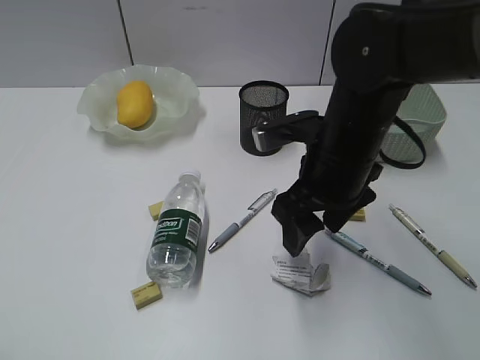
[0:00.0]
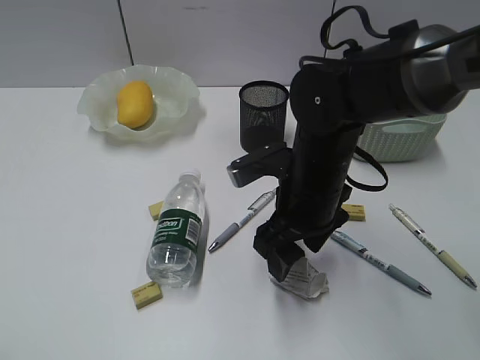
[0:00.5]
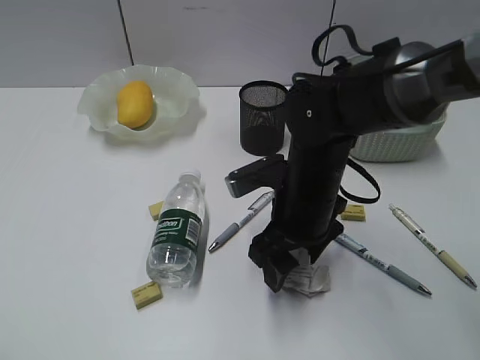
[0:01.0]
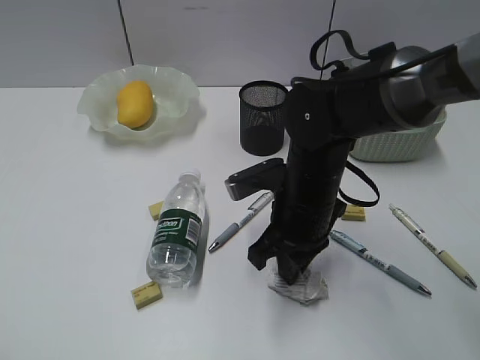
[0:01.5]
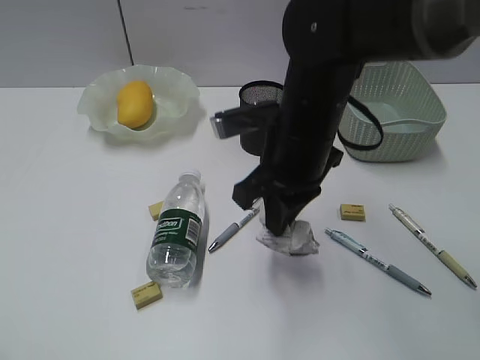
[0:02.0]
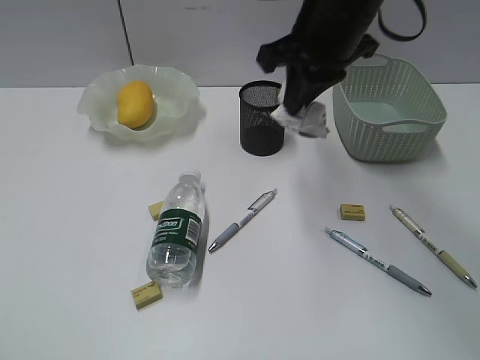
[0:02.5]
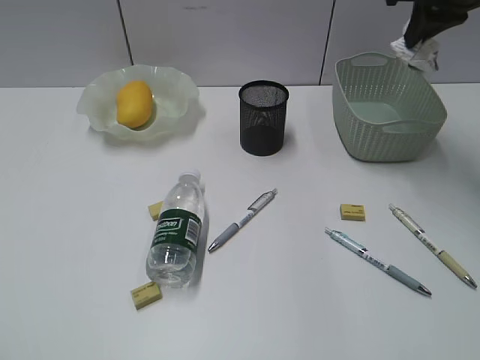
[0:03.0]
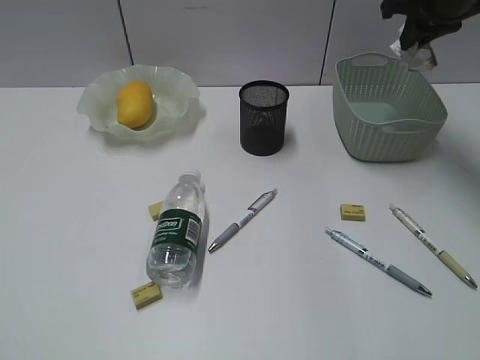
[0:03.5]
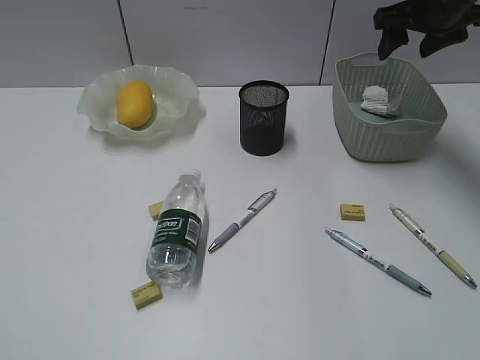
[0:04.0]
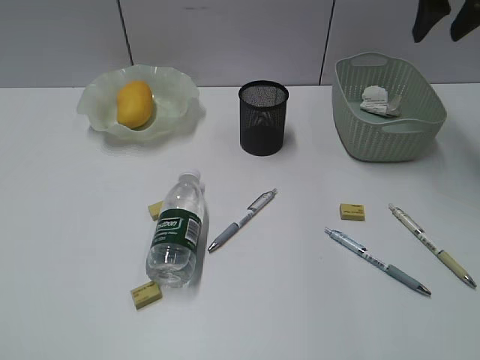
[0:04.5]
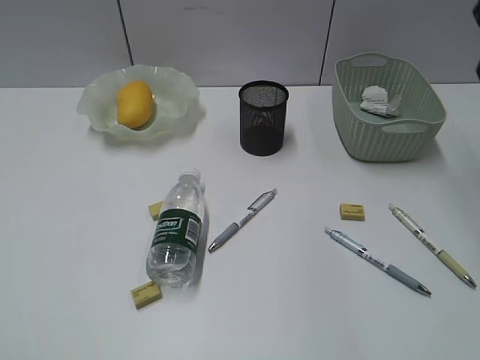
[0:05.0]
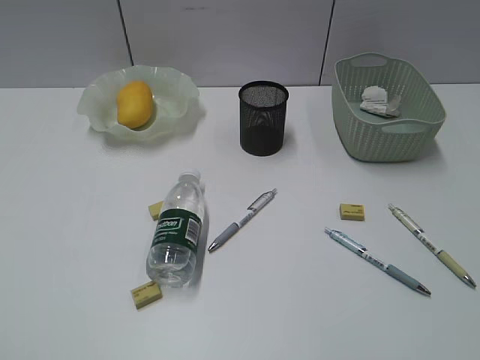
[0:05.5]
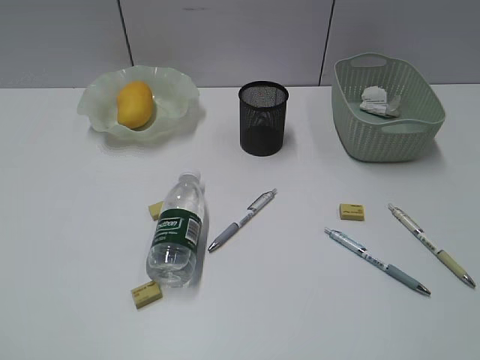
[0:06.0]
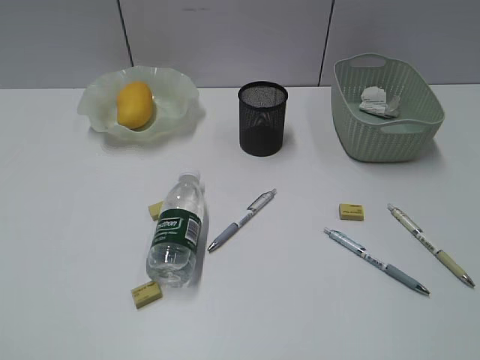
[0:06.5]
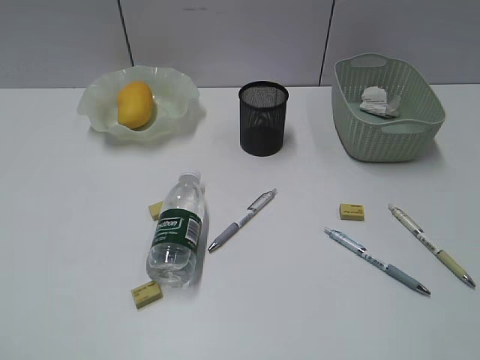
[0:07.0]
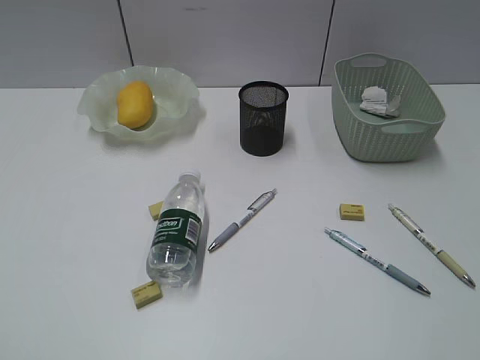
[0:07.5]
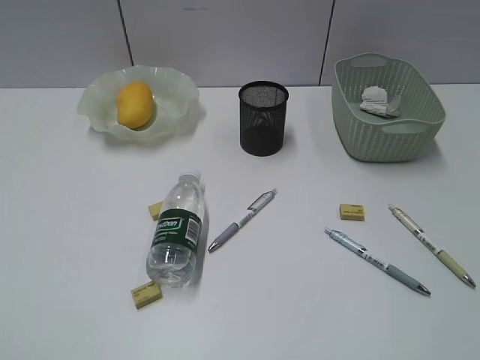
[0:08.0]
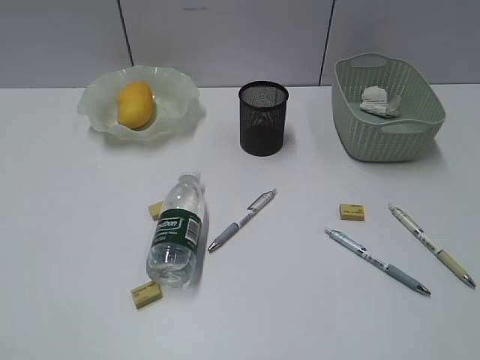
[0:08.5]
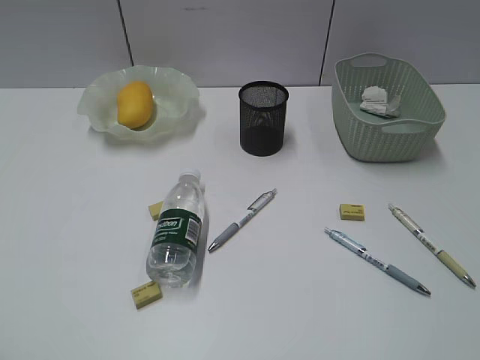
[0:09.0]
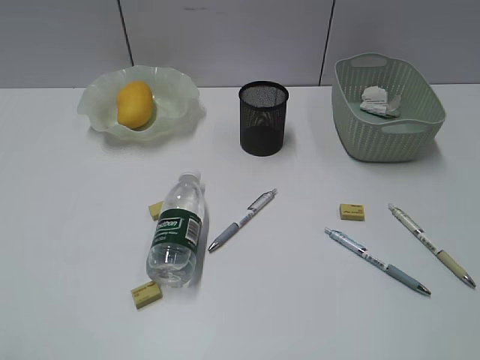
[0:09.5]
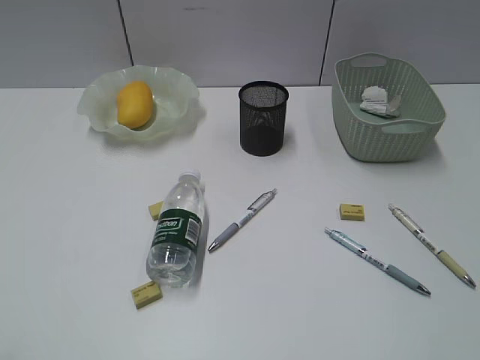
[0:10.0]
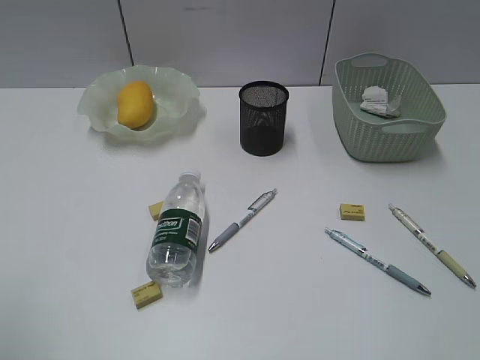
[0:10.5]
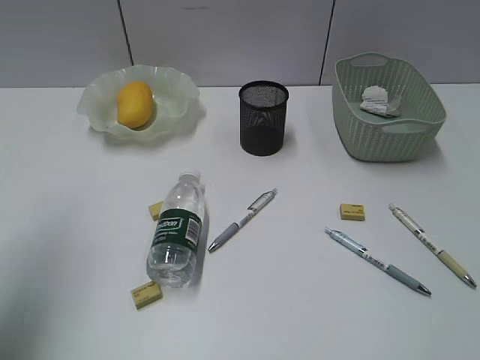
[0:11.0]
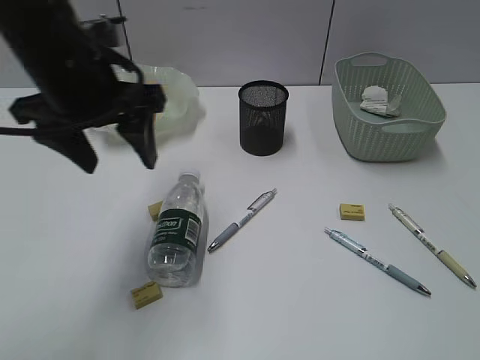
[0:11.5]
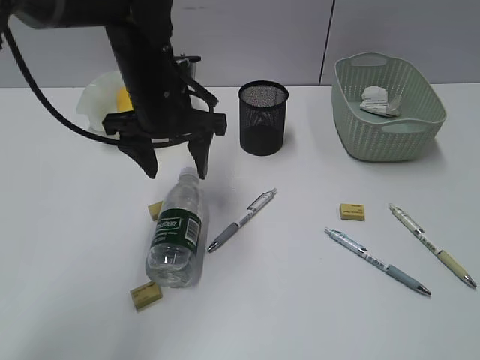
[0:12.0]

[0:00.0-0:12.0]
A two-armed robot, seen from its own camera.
Step, 0:02.0 to 0:04.0: Place the waste paper in the basket with right gripper.
0:00.0 to 0:02.0: The right gripper closes.
0:02.0 to 0:04.0: The right gripper travels to the right, forward and upward by some 30 cm, and opens.
0:04.0 to 0:06.0: The right gripper moves backward, some 40 cm.
0:10.0 to 0:12.0: The left gripper moves forward and to the right, about 40 cm.

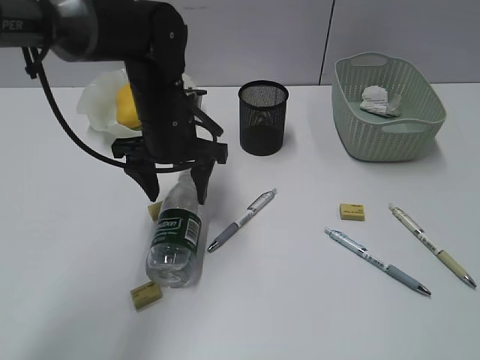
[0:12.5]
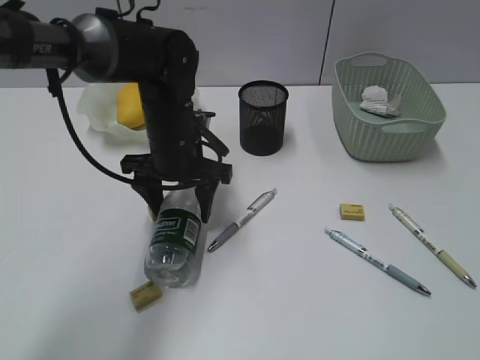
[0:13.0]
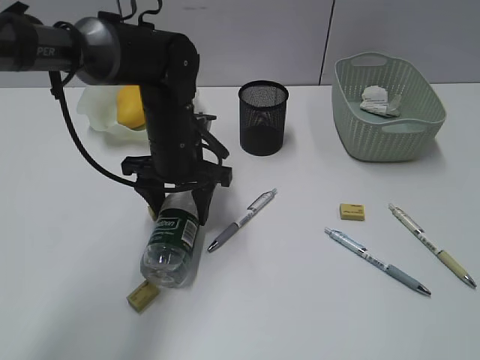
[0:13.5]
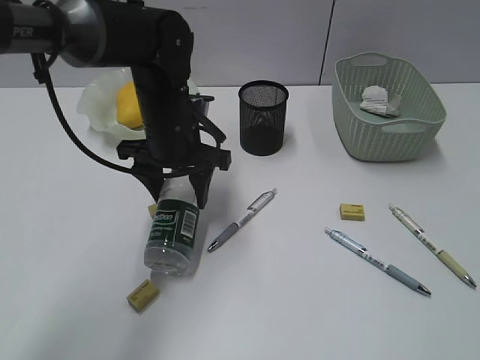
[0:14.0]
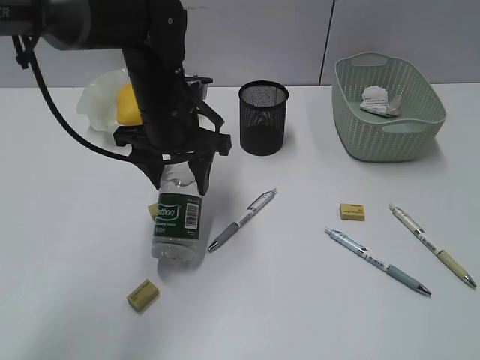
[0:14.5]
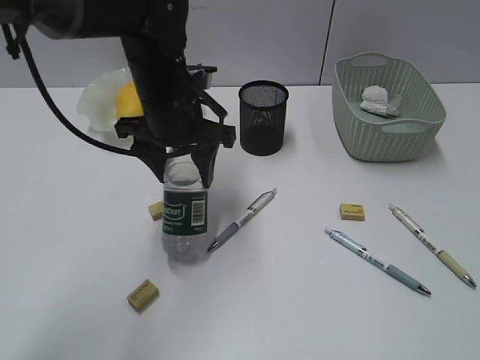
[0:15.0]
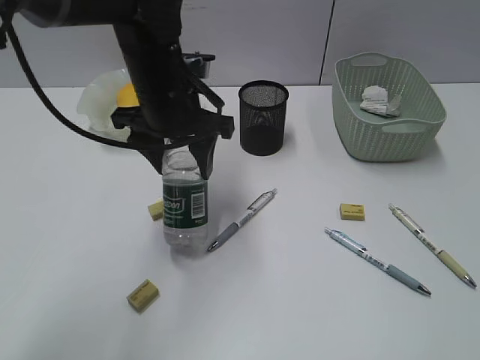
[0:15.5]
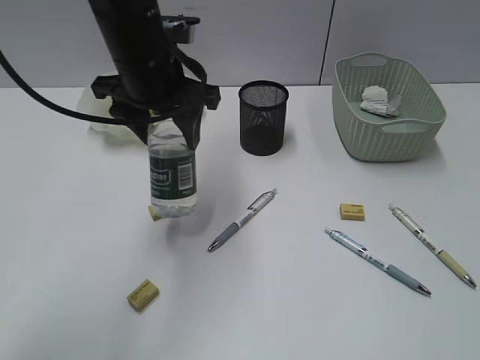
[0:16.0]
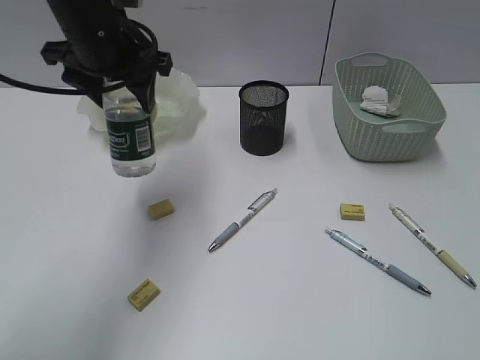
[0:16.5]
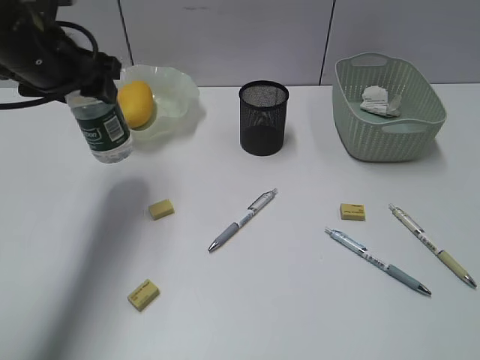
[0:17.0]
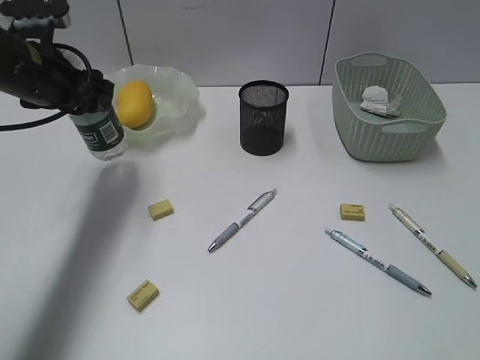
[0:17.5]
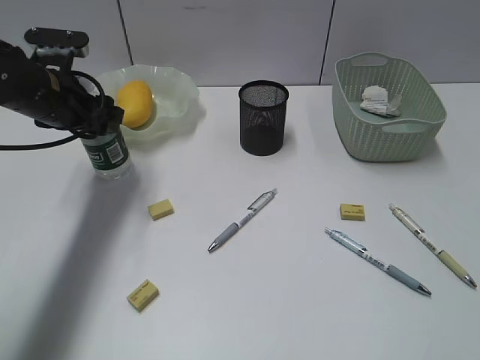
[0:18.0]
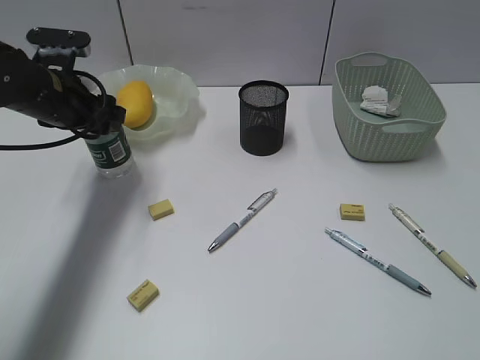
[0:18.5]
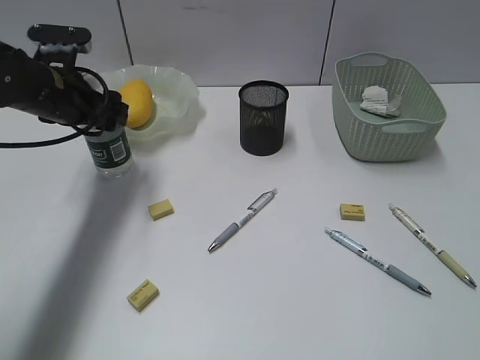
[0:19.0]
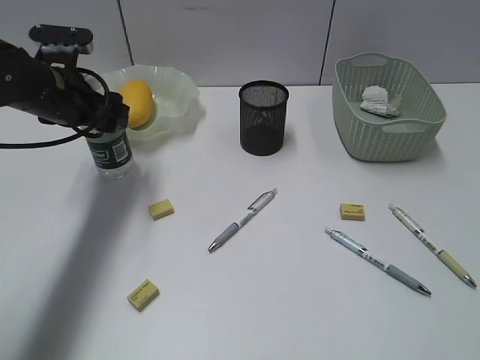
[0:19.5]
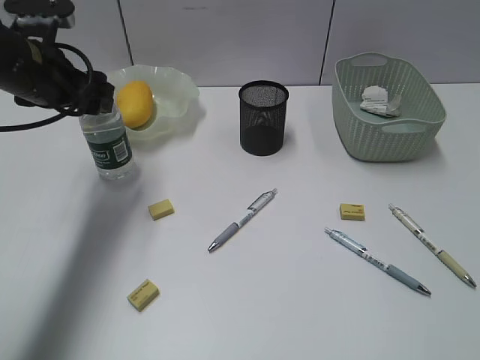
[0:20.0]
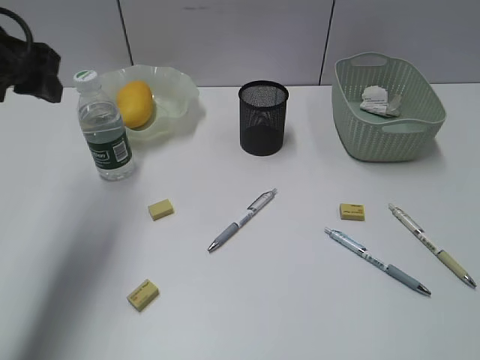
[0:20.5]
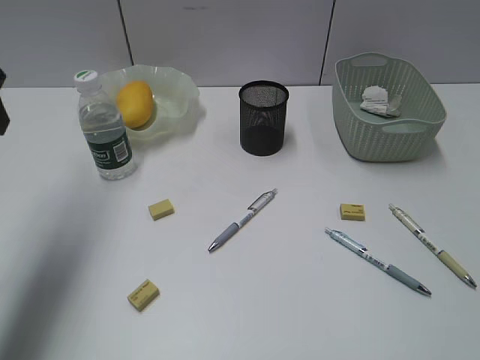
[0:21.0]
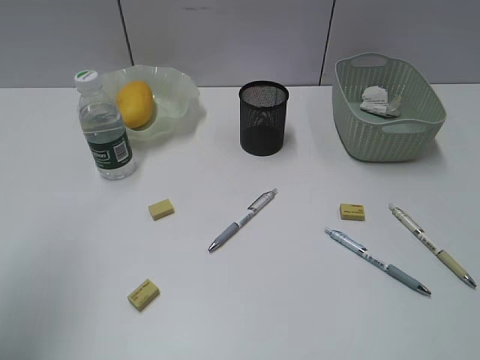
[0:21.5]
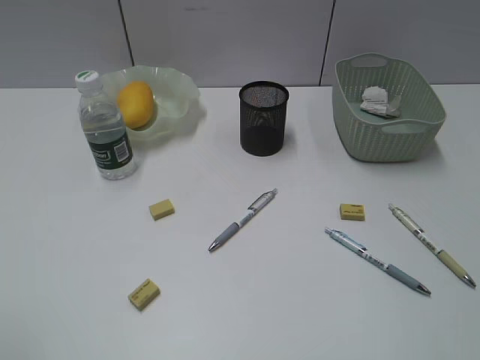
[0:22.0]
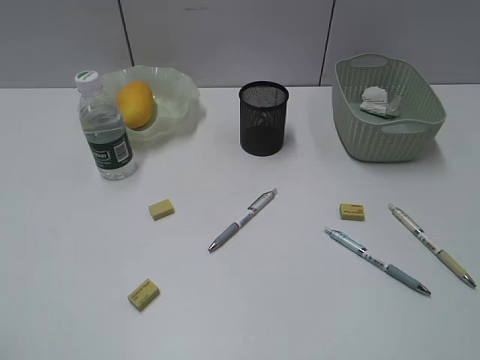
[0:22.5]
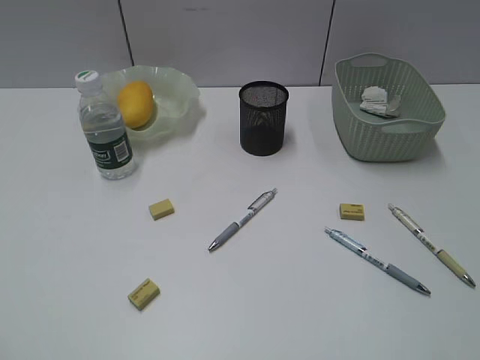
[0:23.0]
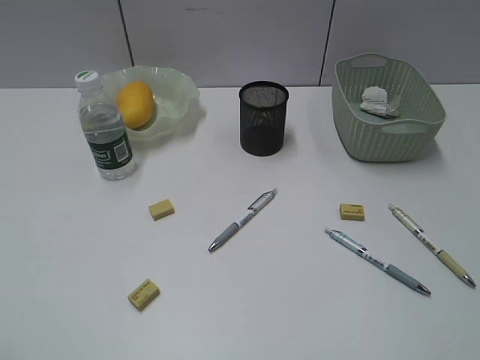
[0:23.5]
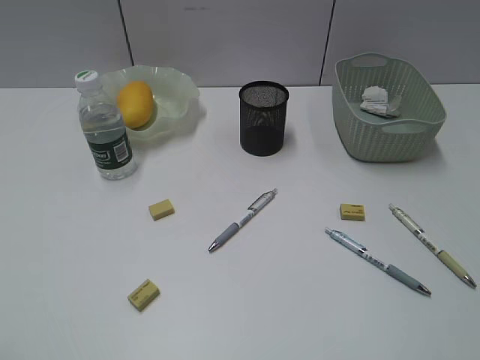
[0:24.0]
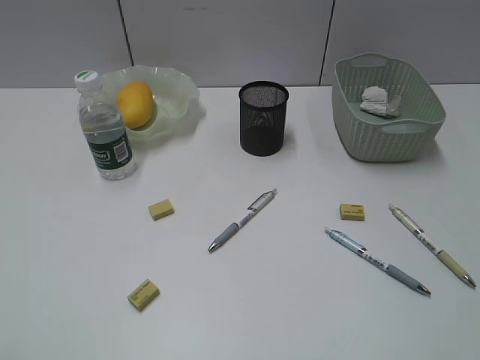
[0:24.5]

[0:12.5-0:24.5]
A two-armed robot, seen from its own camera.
Step, 0:13.5 to 0:20.0: Stand the bottle with left gripper.
0:12.5 to 0:14.5: The grippers make only small movements.
0:14.5 to 0:16.5: The left gripper moves upward and to the left, approximately 10 cm.
0:16.5 to 0:18.5: The left gripper goes some 10 cm downward and to the left.
0:18.5 to 0:20.5: The left gripper travels upward and backward by approximately 15 cm.
0:20.5 to 0:22.5: The left gripper moves backward, about 30 cm.

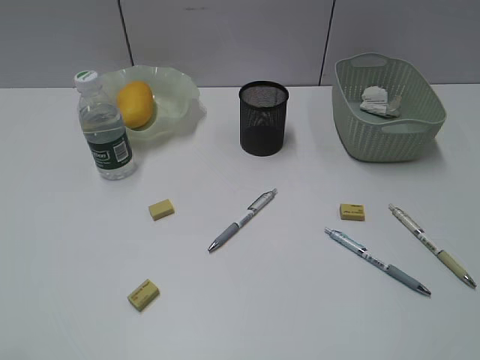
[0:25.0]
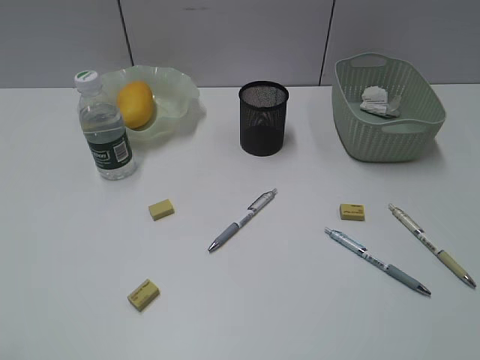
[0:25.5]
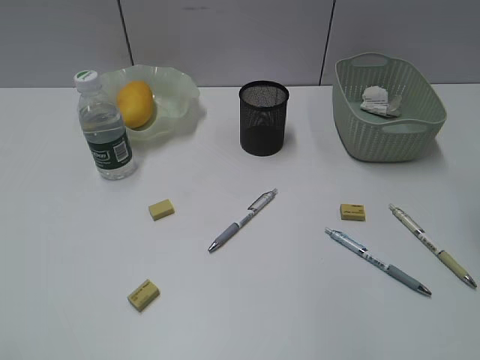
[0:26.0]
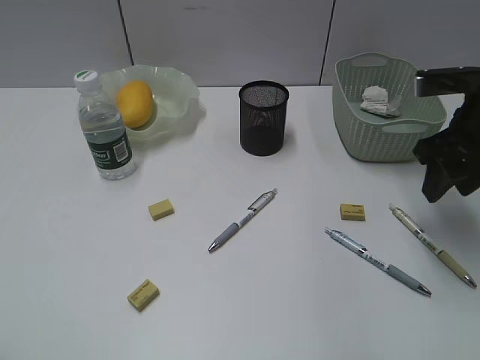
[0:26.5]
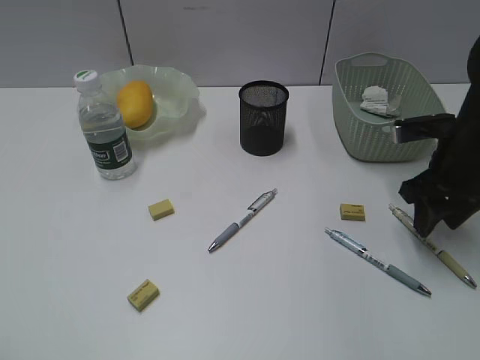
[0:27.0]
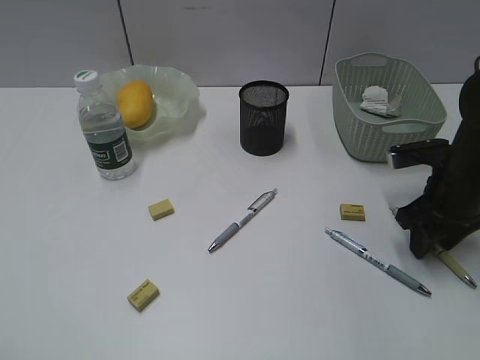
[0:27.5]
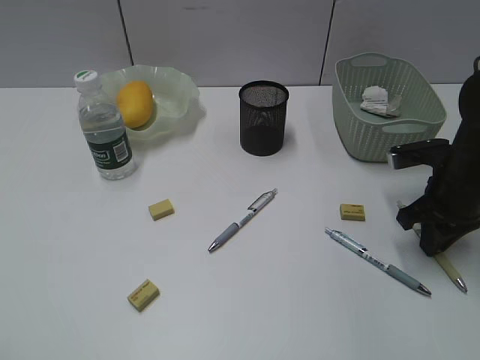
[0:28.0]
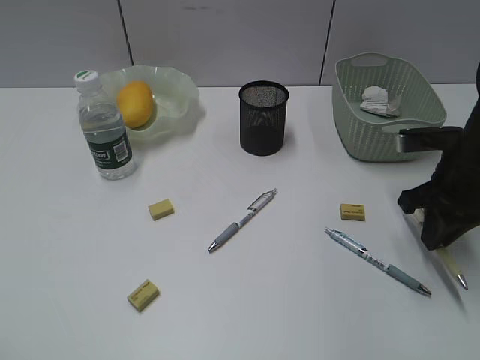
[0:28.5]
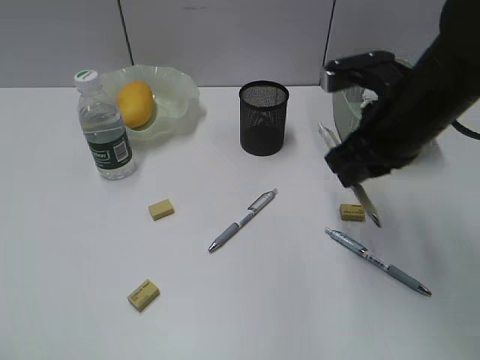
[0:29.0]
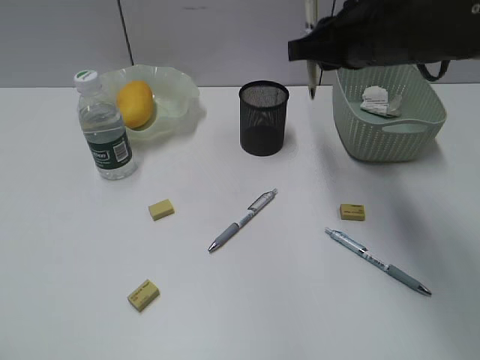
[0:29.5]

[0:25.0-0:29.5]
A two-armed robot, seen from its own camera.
Step, 0:25.0 to 0:28.0: Grasp the yellow pen with right gripper.
0:25.0 to 0:27.0: The right gripper heads forward and downward, covering some 35 cm.
0:27.0 to 0:29.5: The right gripper travels to the left and upward by some 15 cm, and closes its fingers.
